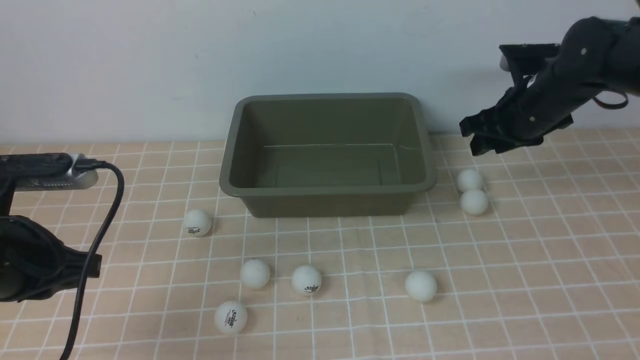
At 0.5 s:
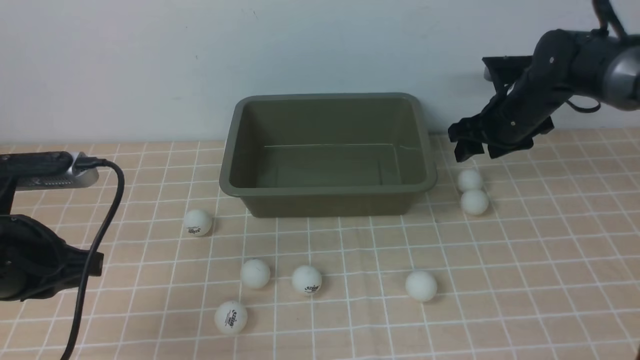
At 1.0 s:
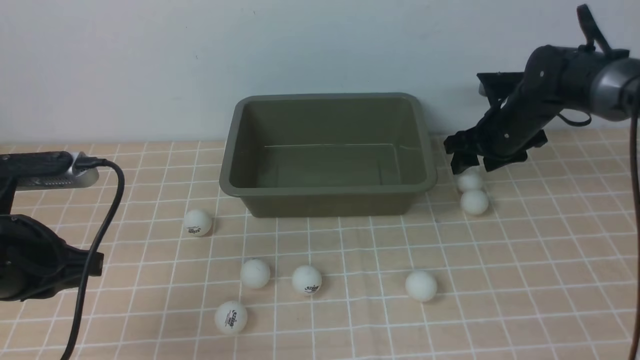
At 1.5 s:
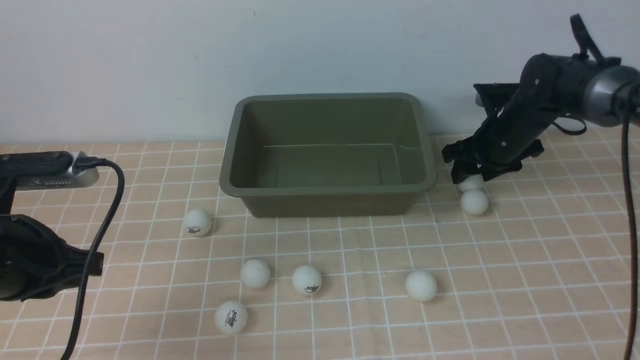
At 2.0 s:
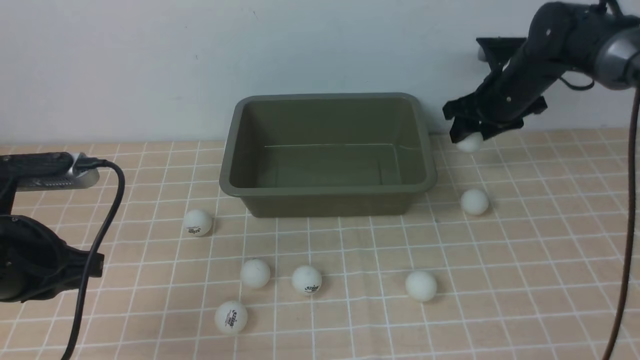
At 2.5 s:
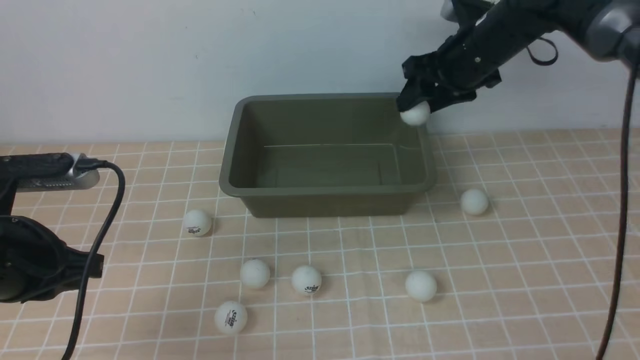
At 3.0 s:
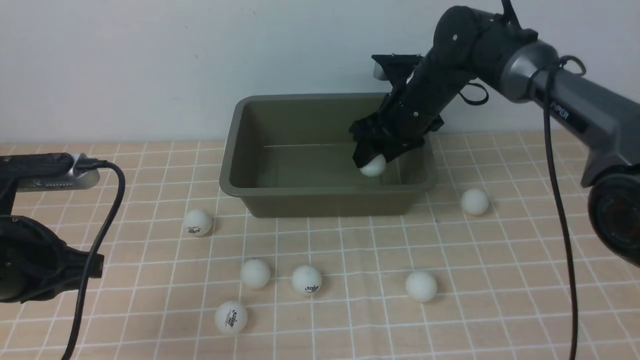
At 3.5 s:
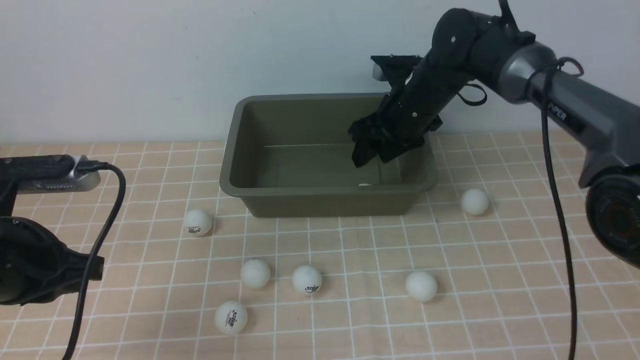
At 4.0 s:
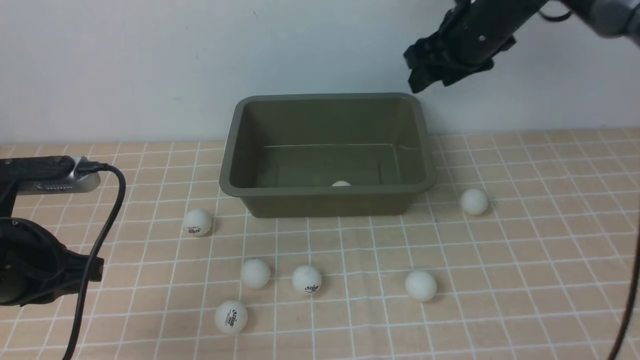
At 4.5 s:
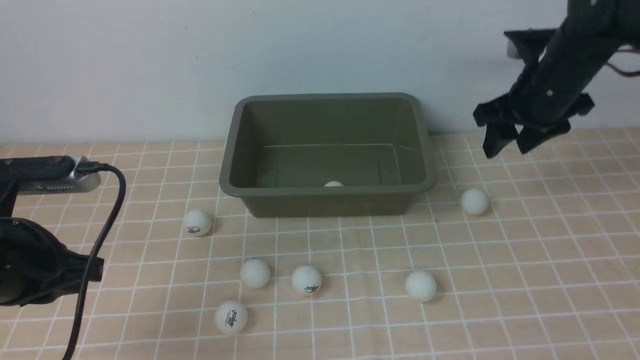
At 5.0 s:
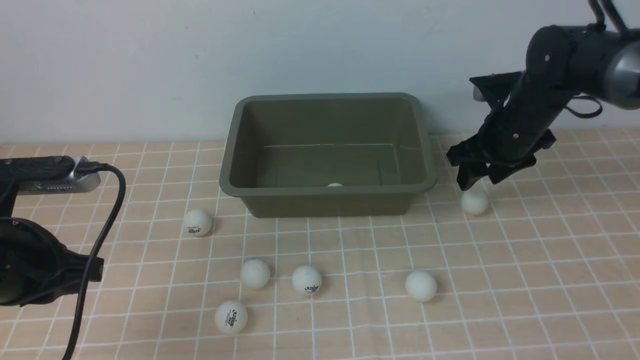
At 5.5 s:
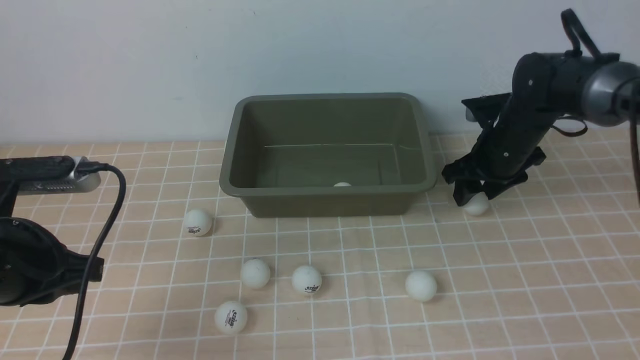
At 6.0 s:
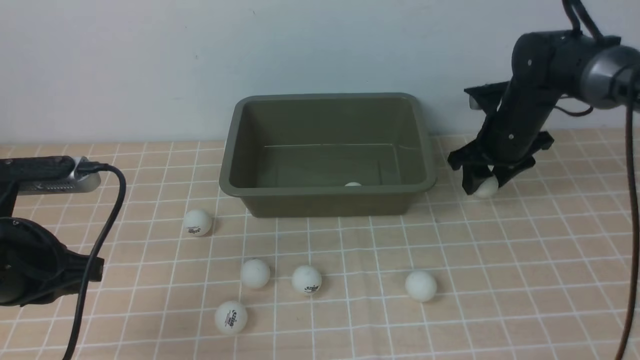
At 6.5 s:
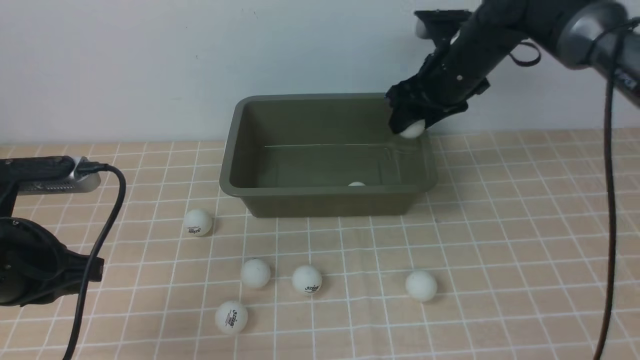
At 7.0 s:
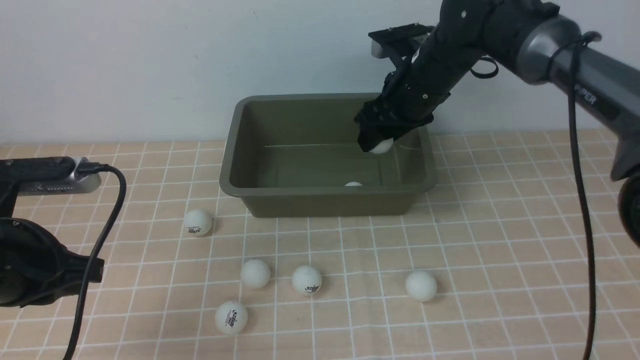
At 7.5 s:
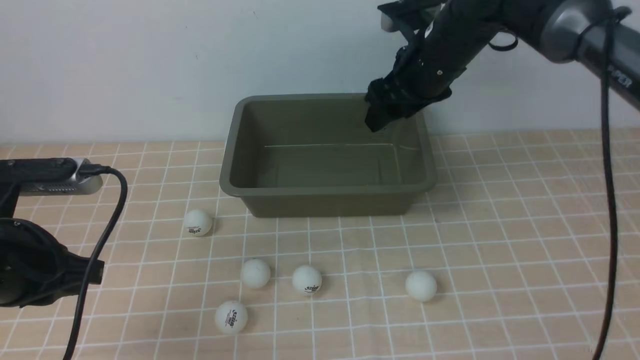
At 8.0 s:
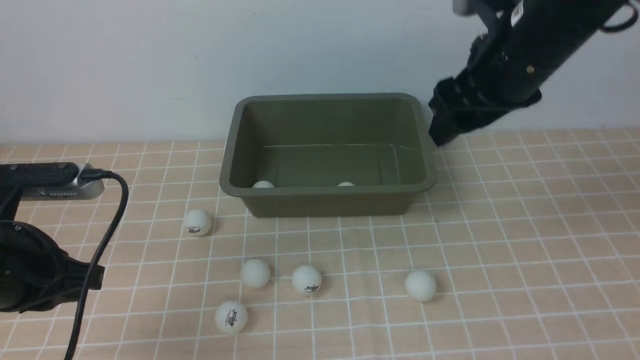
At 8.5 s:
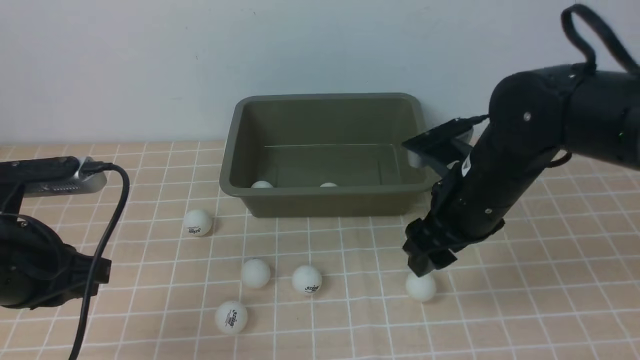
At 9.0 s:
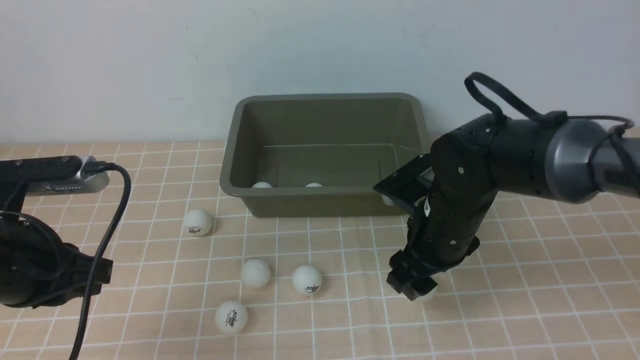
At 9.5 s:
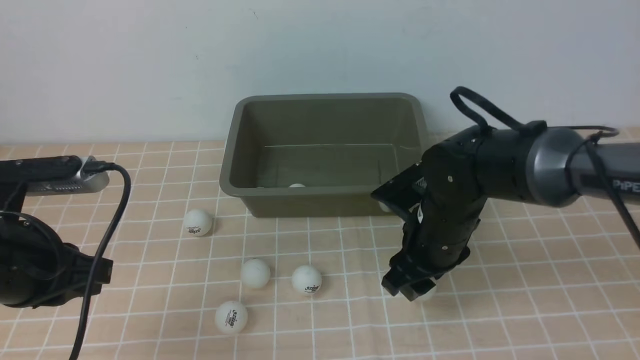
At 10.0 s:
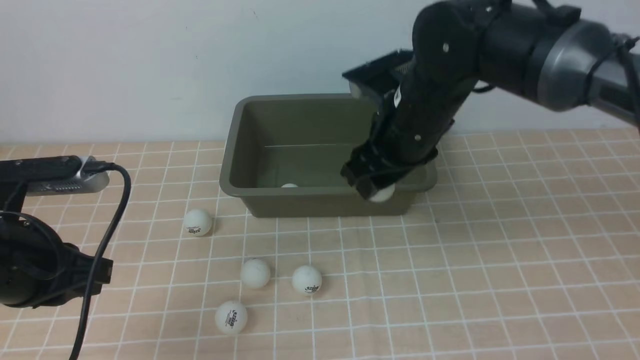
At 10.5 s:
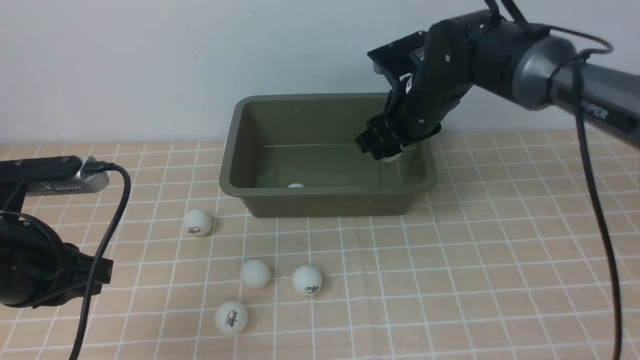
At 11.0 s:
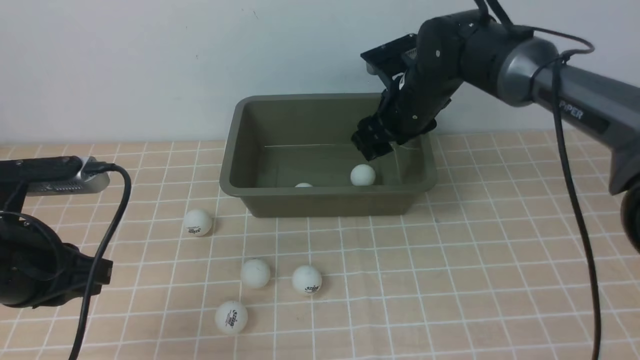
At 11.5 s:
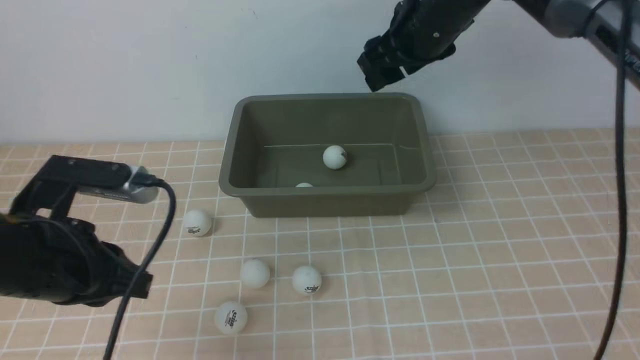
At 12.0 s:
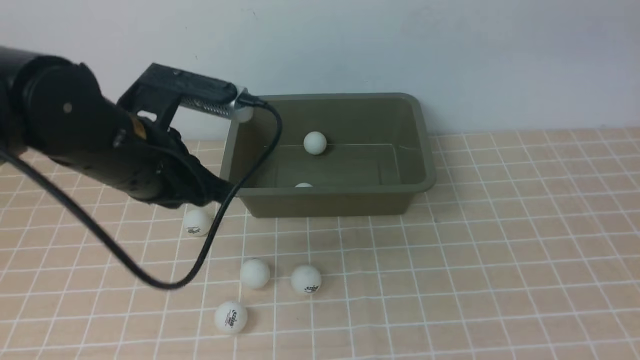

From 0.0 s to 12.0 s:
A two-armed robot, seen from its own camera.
Step, from 2.0 s to 3.5 s: use the right arm to put the table tennis ball into the box.
Step, from 4.0 s to 6.0 s: use the right arm to clamp the table tennis ball closest to it.
Step, from 6.5 s to 7.0 s: use the right arm to put the table tennis ball into the box.
Step, from 7.5 s to 9.5 s: use the right arm to clamp the table tennis ball closest to it.
Step, from 10.0 s to 11.0 s: use the right arm to put the table tennis ball into the box.
From 0.0 s to 2.0 s: The right gripper shifts approximately 5 cm forward.
From 2.0 s to 4.0 s: The right gripper shifts approximately 10 cm upward.
From 4.0 s to 6.0 s: The right gripper goes approximately 10 cm downward.
From 6.0 s to 8.0 s: The right gripper travels upward, backward and to the left by some 20 cm.
From 8.0 s to 10.0 s: The right gripper shifts approximately 10 cm to the left and downward.
From 10.0 s to 12.0 s: The right gripper goes about 25 cm upward and to the right, and closes up, while the left gripper heads to the right and forward, covering approximately 10 cm.

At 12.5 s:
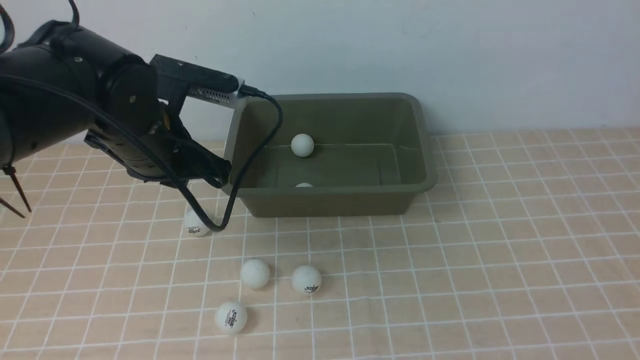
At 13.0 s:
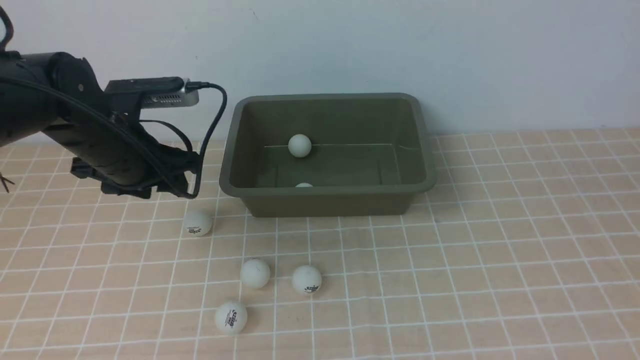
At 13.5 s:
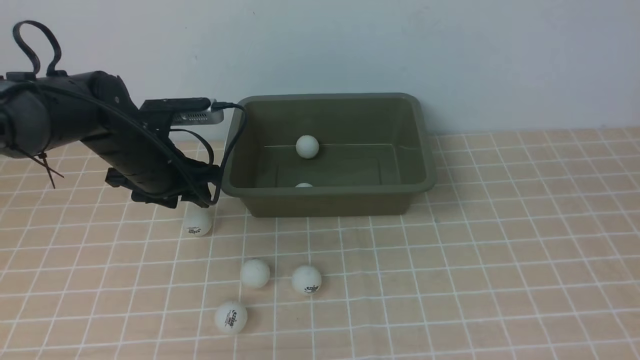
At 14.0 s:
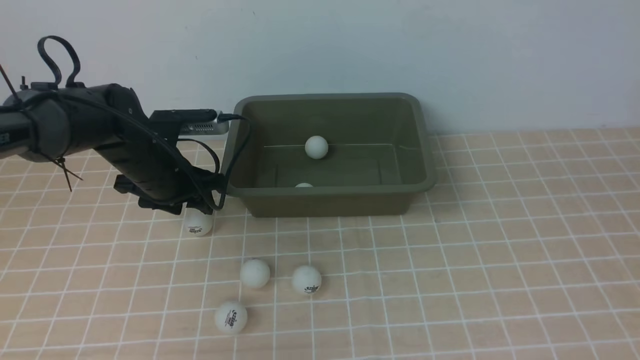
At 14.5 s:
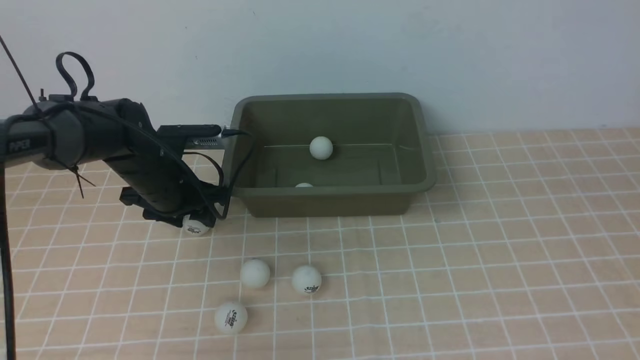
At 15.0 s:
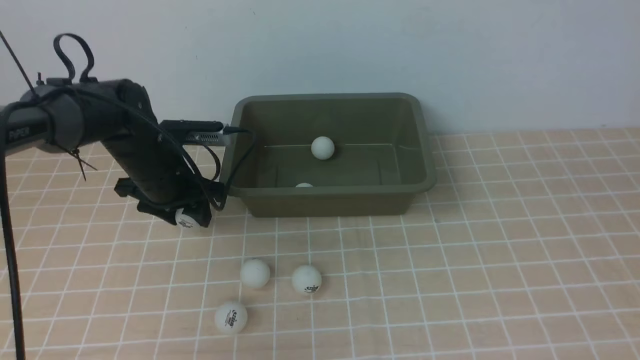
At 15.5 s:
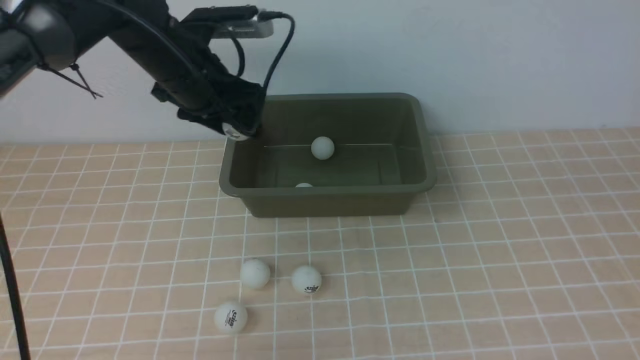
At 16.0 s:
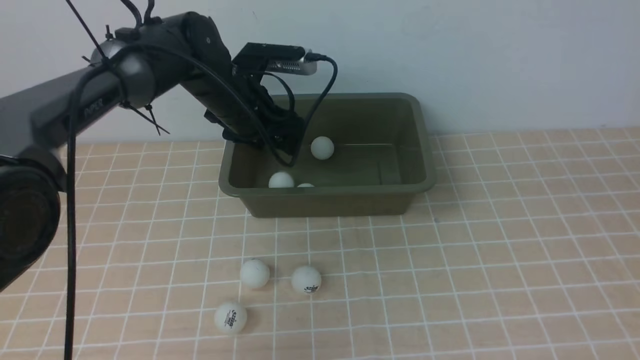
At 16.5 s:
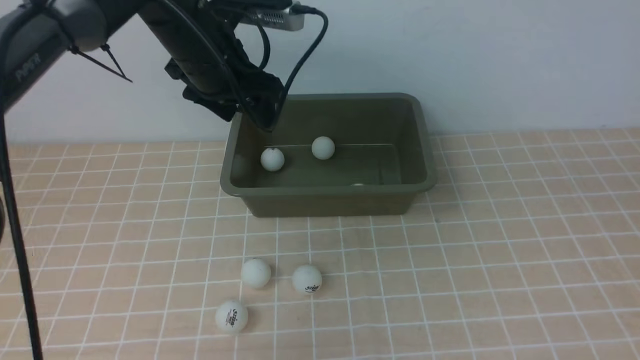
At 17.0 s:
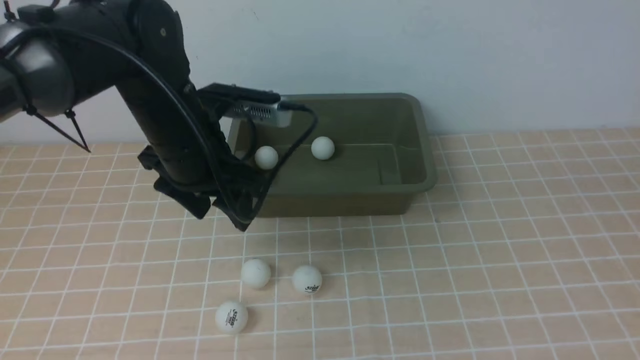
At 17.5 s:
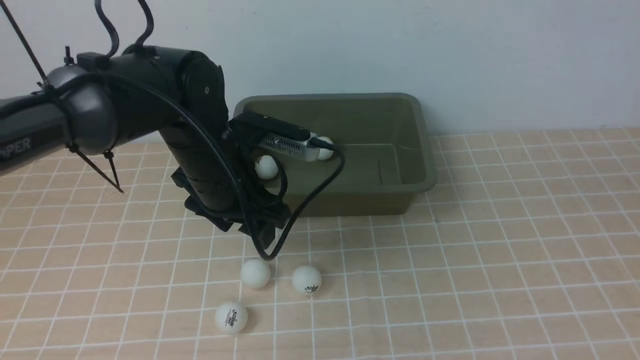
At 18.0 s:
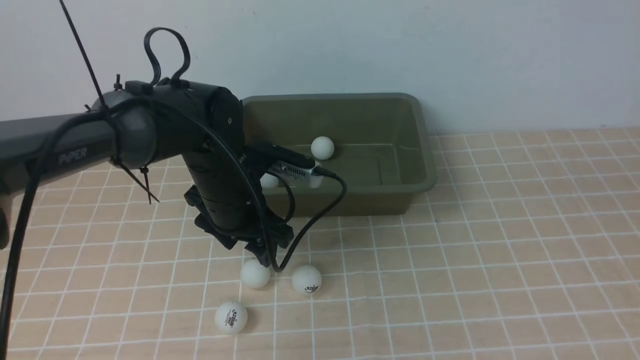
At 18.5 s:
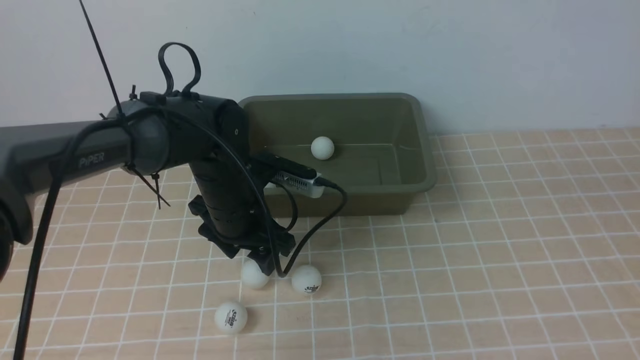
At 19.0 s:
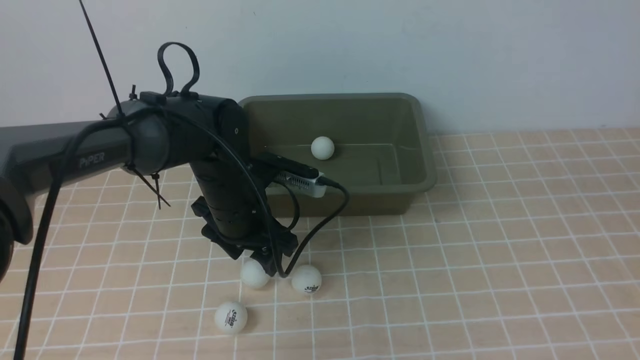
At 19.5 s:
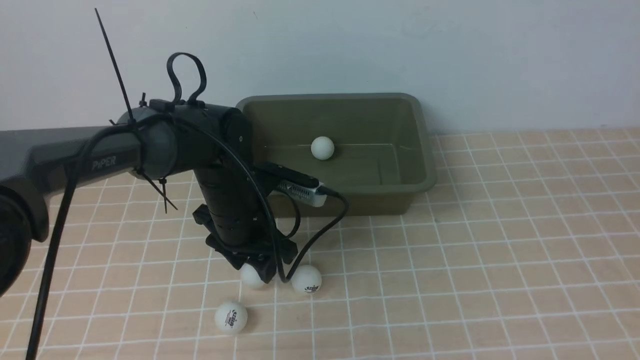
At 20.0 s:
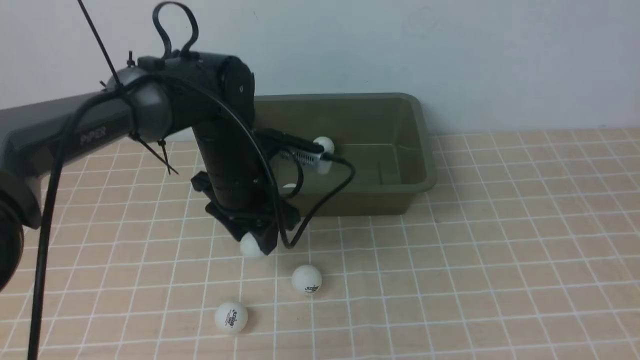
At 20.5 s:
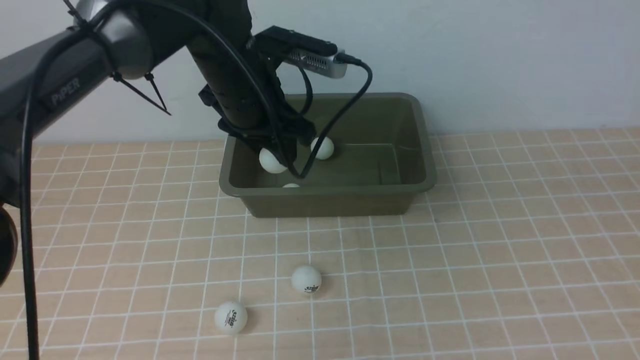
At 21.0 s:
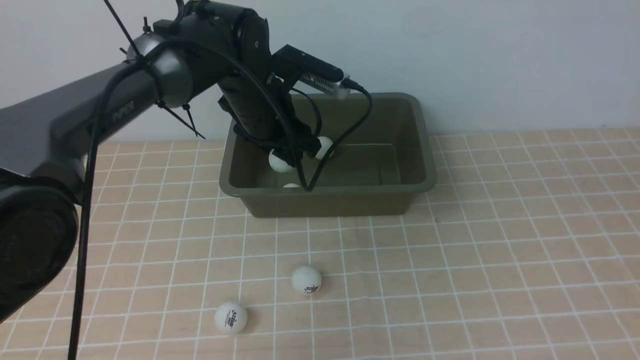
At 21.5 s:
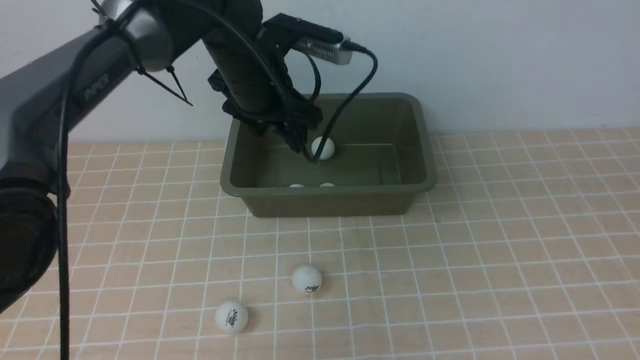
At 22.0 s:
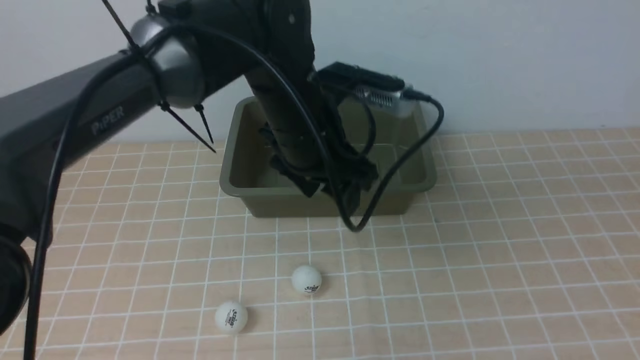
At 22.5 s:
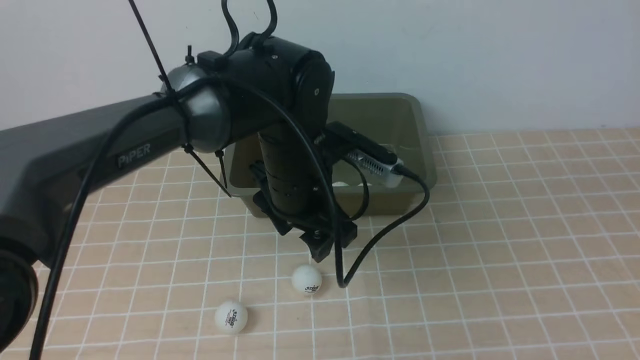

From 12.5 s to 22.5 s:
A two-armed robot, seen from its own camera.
Step, from 12.5 s to 14.5 s: use the left arm to clamp the table tennis ball closest to it.
Step, from 15.0 s to 16.0 s: use the left arm to put the table tennis ball into the box.
Step, from 16.5 s to 20.0 s: use the left arm to clamp the table tennis ball closest to it.
Step, from 20.5 s to 21.0 s: use the left arm to put the table tennis ball into the box.
From 12.5 s to 14.5 s: The right gripper goes roughly 5 cm backward, while the left gripper goes some 15 cm downward and forward, and opens its fingers.
From 14.5 s to 16.5 s: The left gripper moves upward and to the right, some 20 cm.
From 16.5 s to 18.5 s: The left gripper goes some 15 cm downward and backward.
From 18.5 s to 20.5 s: The left gripper travels upward by some 10 cm.
From 20.5 s to 22.5 s: The left gripper moves backward and to the right, approximately 10 cm.
